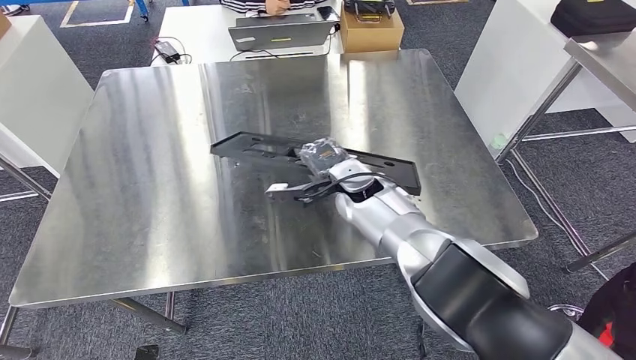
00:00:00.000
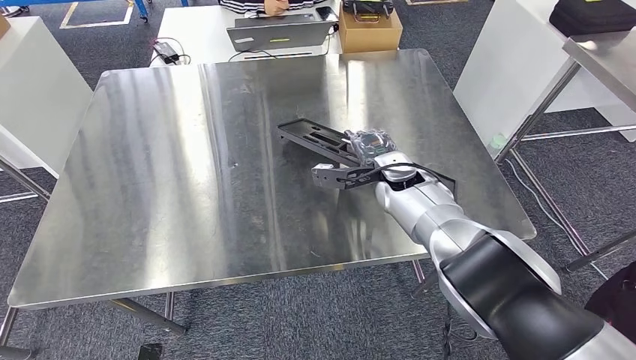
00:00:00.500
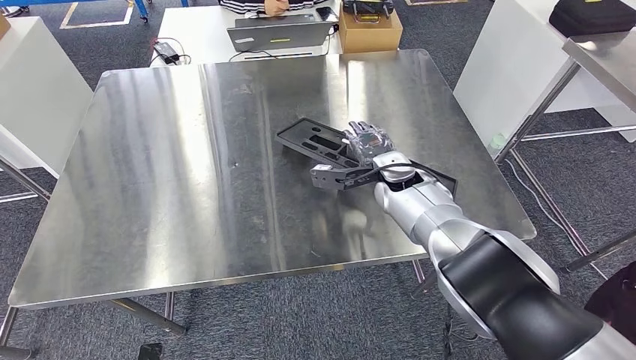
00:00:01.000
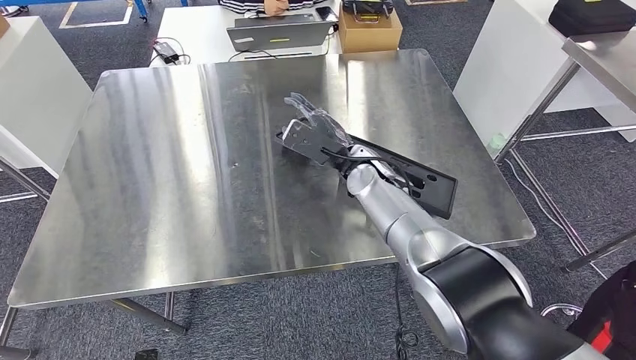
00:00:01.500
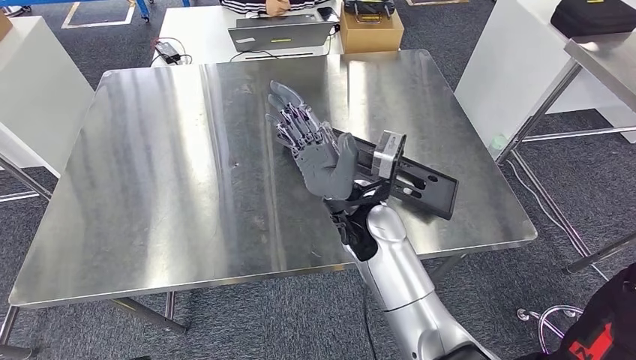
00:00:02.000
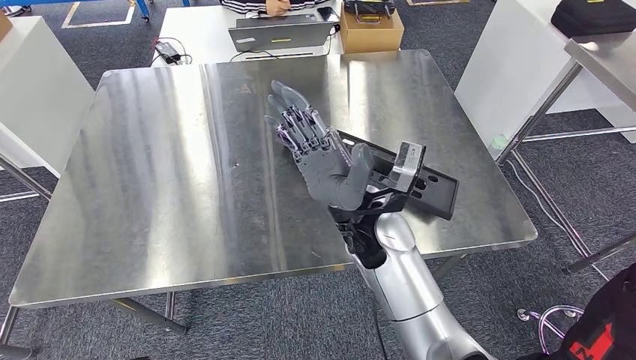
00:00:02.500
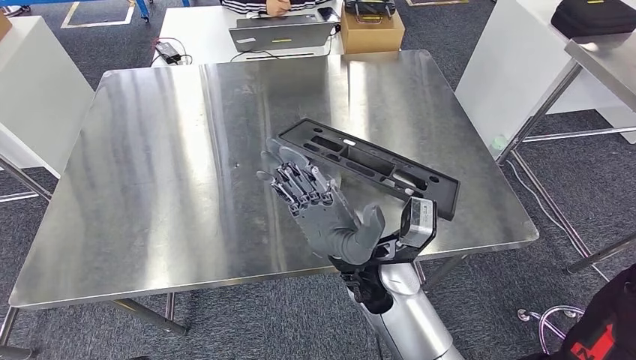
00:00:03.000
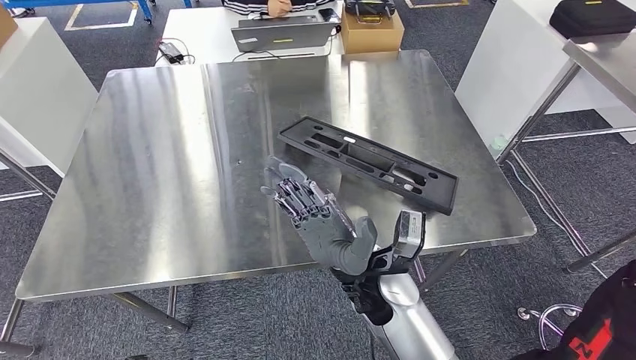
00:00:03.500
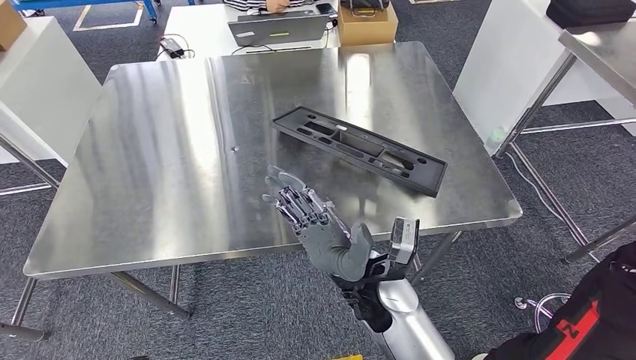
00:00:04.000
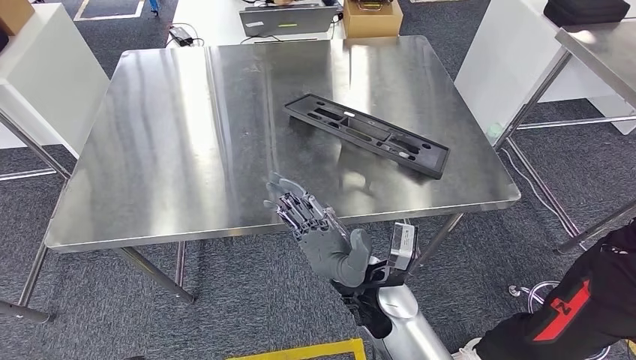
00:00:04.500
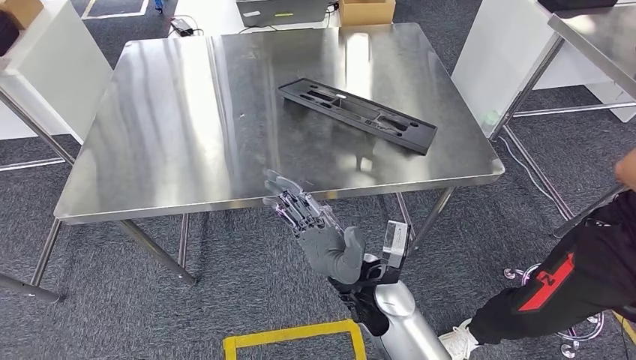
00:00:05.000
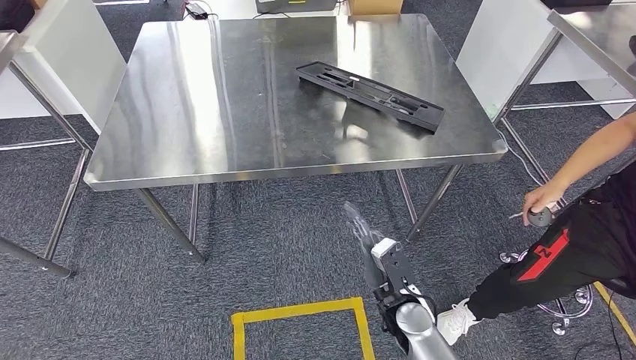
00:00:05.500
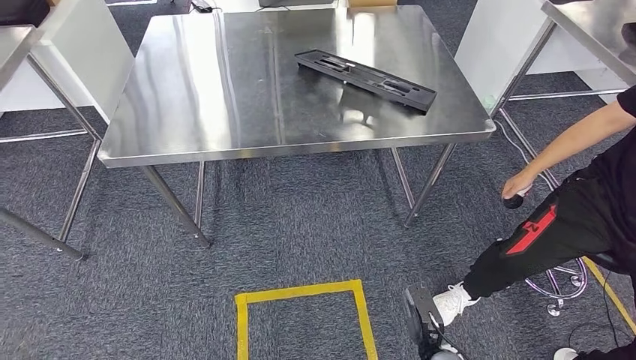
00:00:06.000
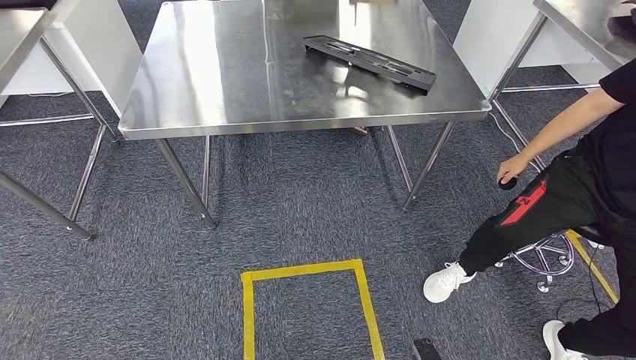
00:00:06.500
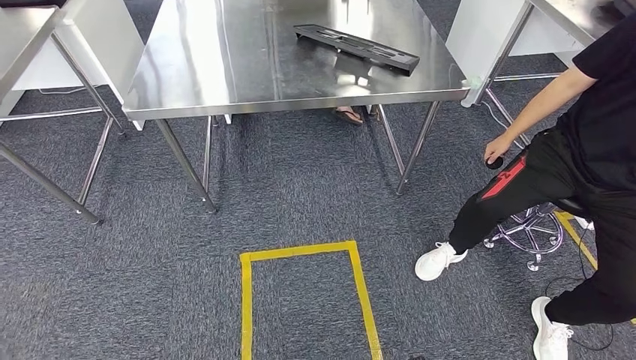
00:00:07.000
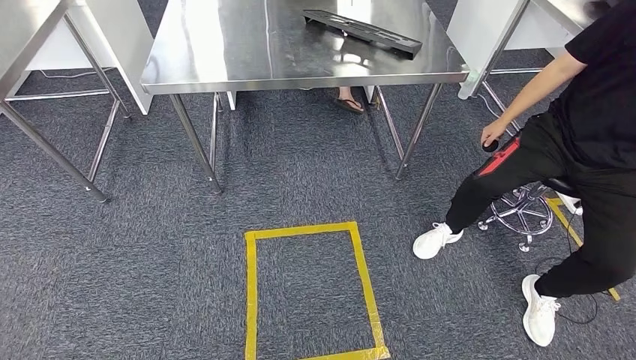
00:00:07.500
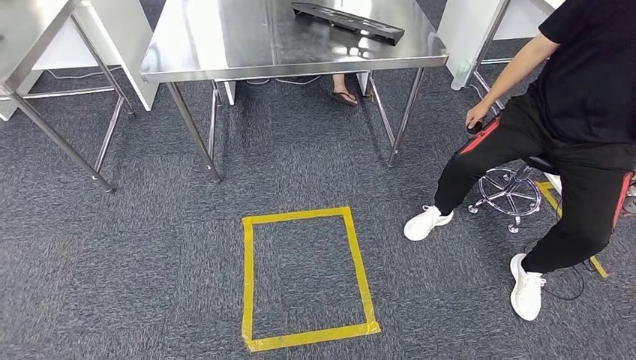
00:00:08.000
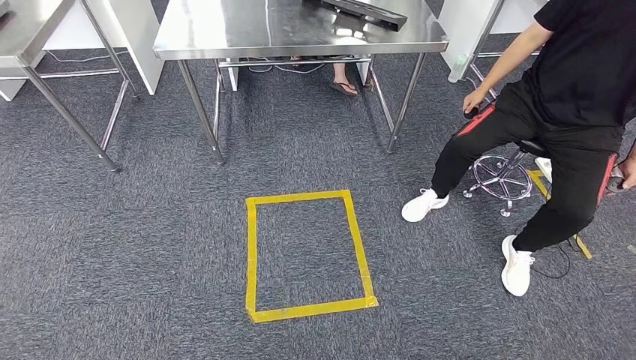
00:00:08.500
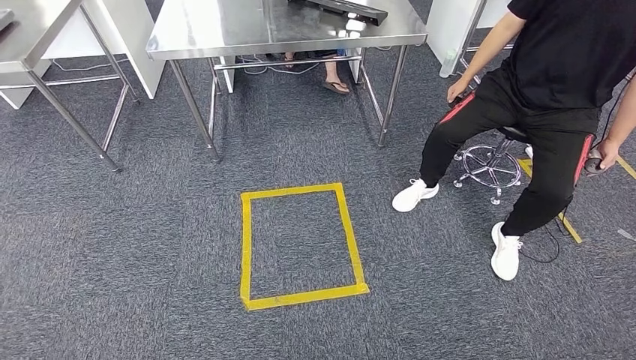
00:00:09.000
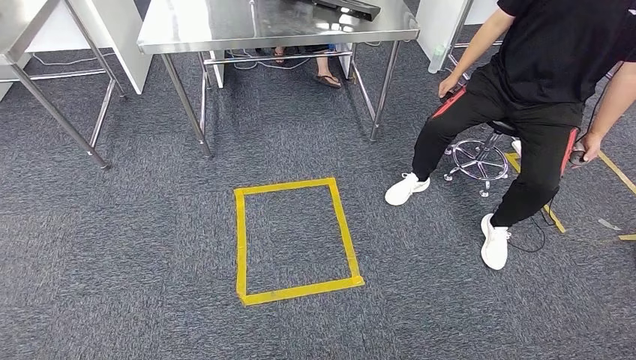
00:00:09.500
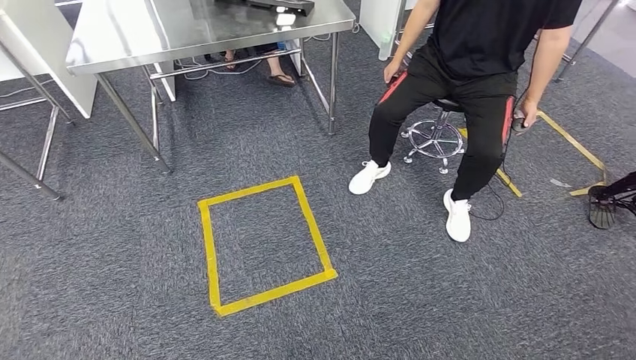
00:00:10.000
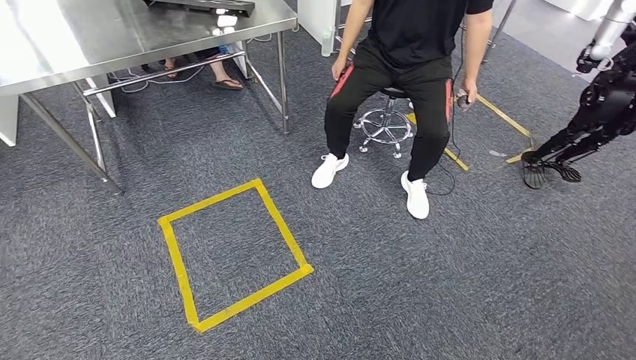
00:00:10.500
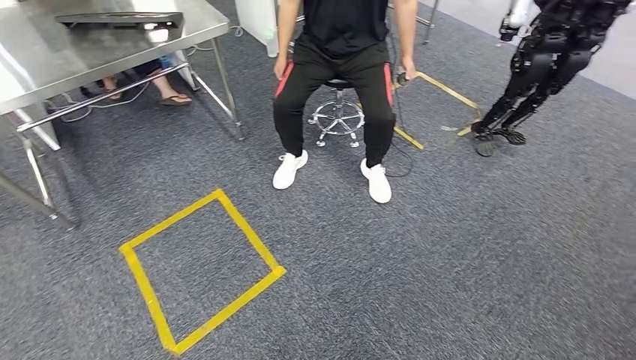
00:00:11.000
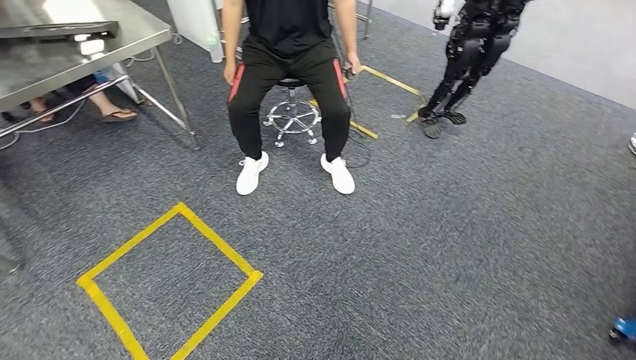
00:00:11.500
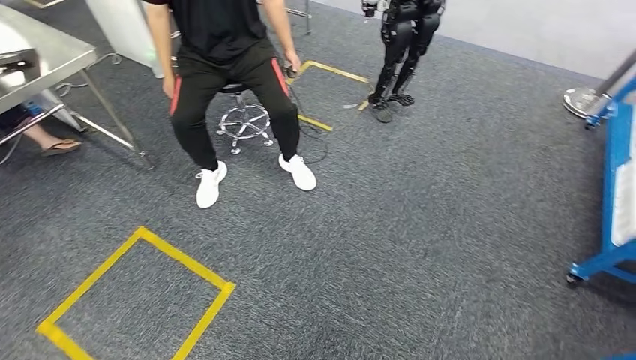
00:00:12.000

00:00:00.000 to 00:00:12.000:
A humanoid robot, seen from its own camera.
Step, 00:00:00.000 to 00:00:08.000: Insert the large material into the corresponding slot on the workbench.
00:00:00.000 to 00:00:02.000: The right hand goes roughly 10 cm backward.

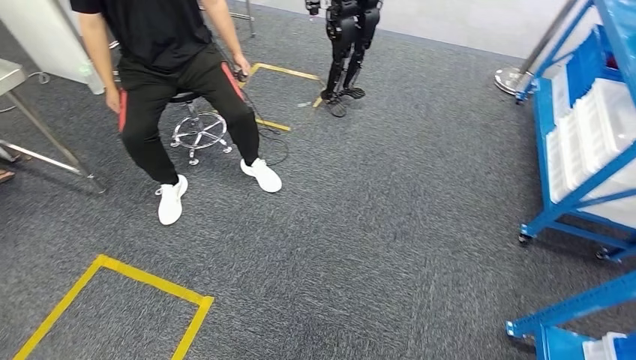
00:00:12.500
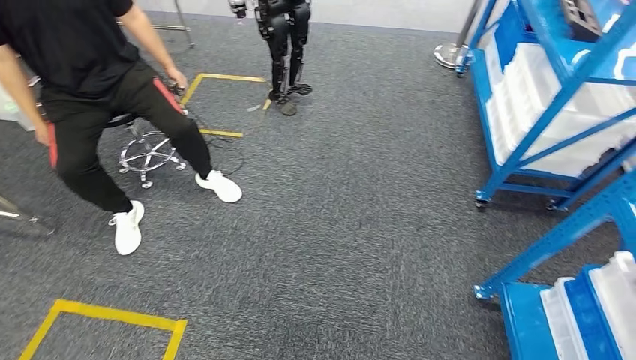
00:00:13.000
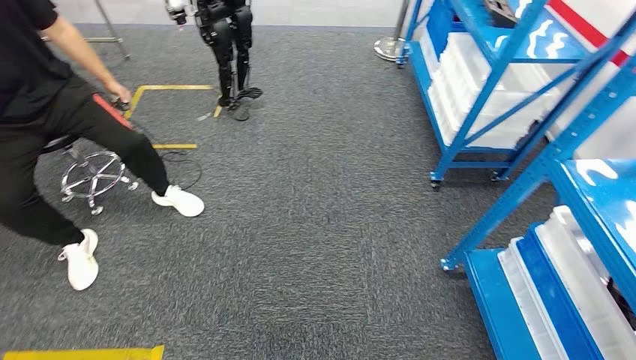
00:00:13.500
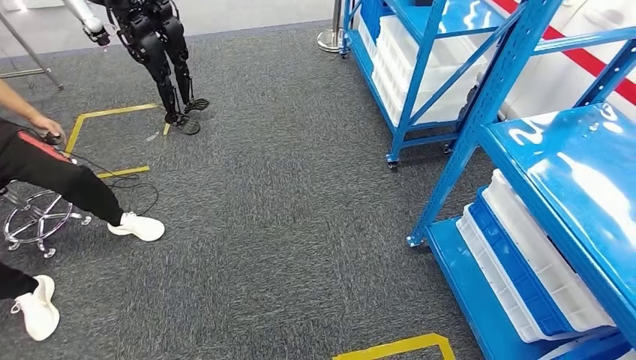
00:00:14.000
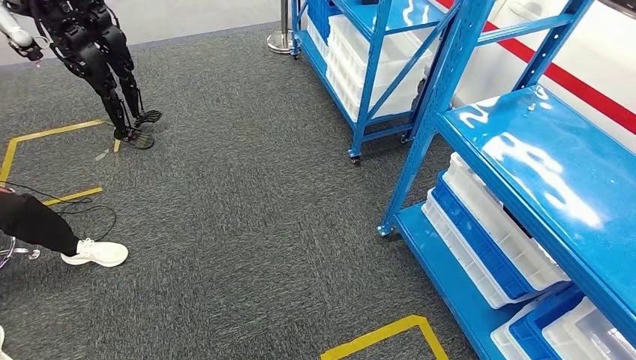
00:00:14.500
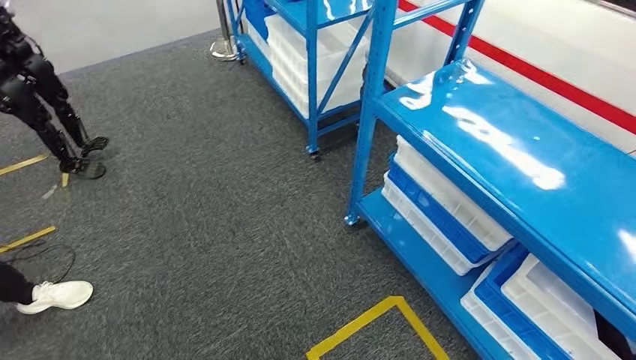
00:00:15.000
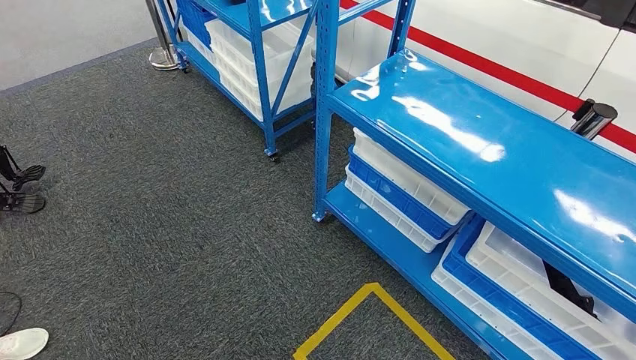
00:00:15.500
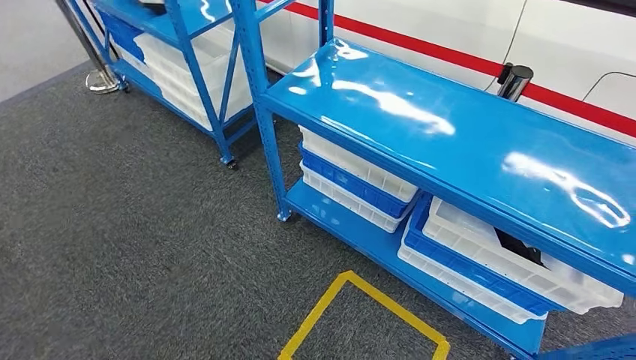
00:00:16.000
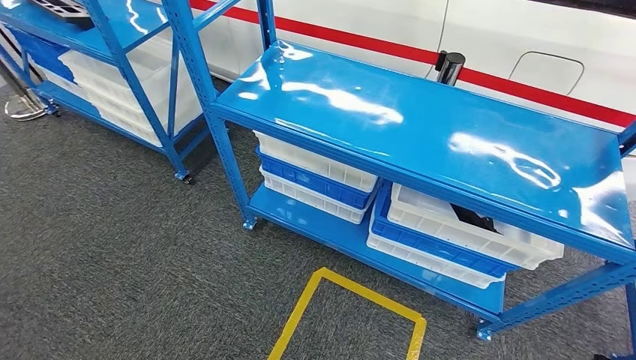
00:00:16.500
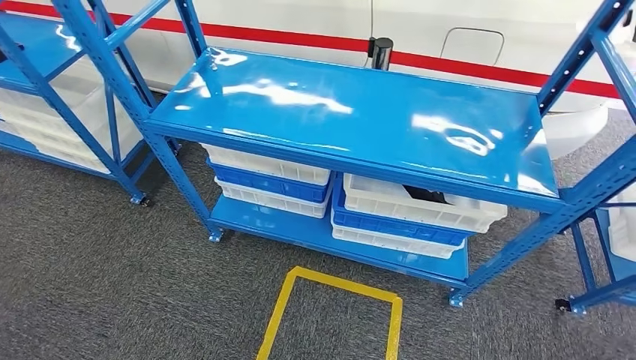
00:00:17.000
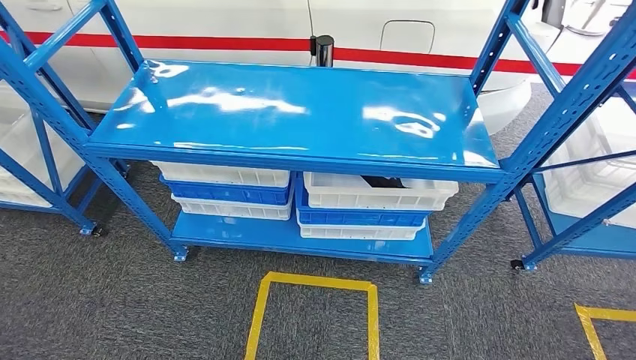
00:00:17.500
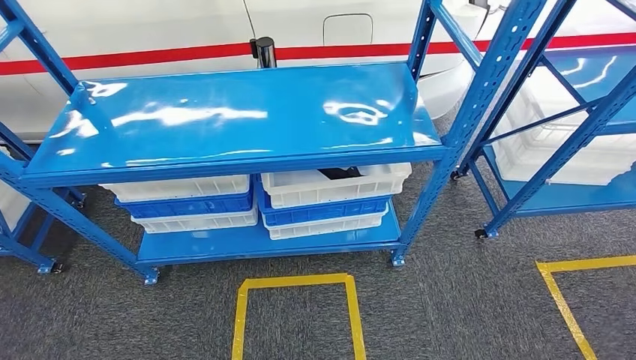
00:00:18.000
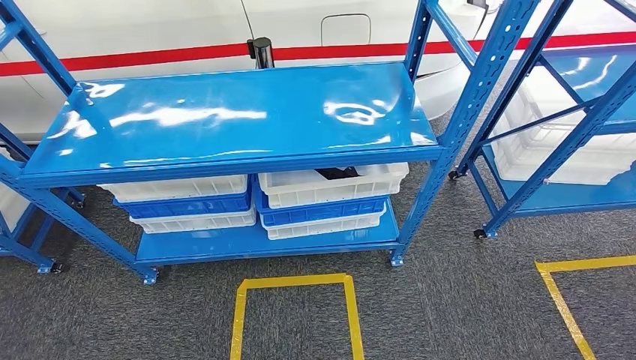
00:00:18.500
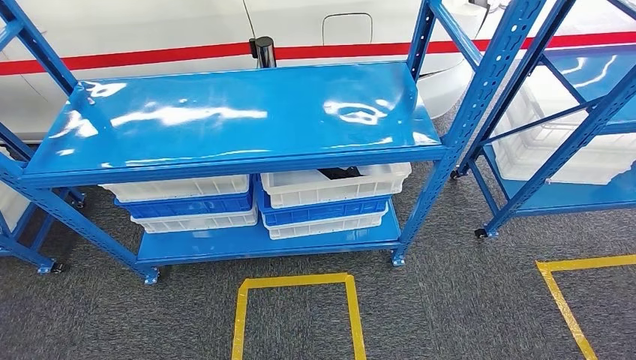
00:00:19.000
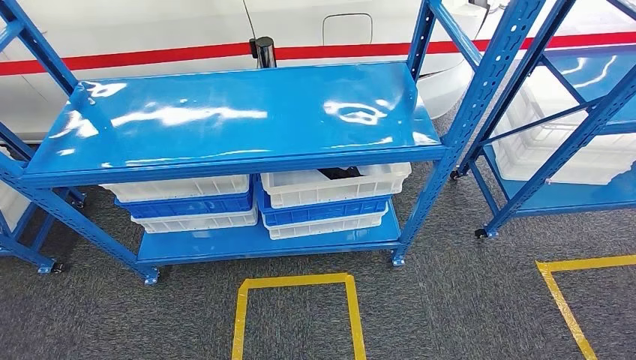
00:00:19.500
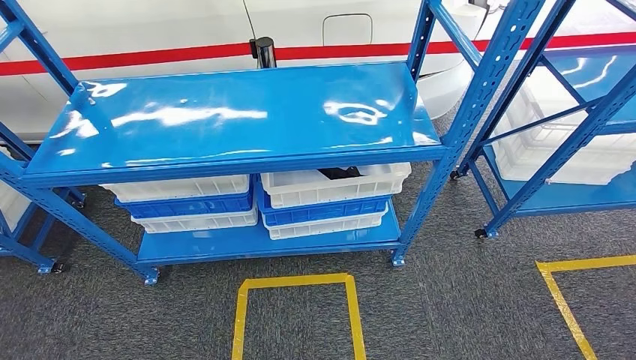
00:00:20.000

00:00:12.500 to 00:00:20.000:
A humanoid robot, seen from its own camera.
Step, 00:00:12.500 to 00:00:20.000: Return to the initial position at the shelf.
00:00:18.000 to 00:00:20.000: The right hand heads backward, covering roughly 5 cm.
